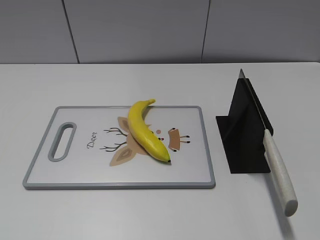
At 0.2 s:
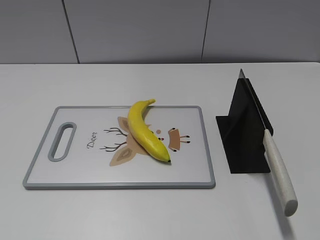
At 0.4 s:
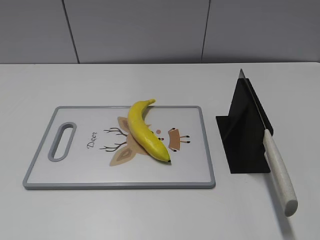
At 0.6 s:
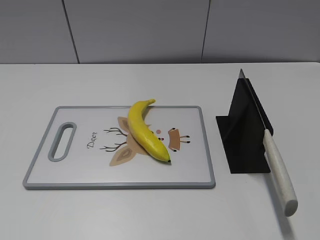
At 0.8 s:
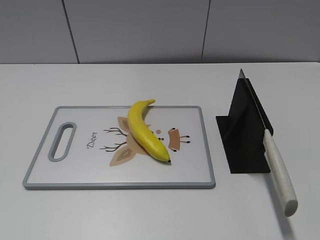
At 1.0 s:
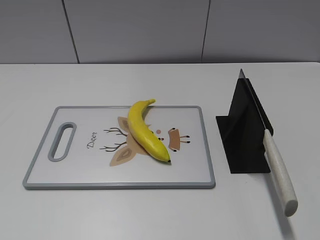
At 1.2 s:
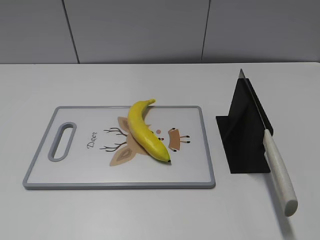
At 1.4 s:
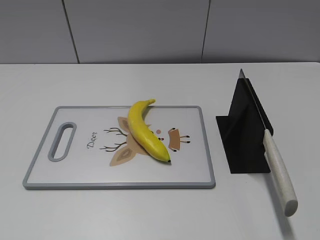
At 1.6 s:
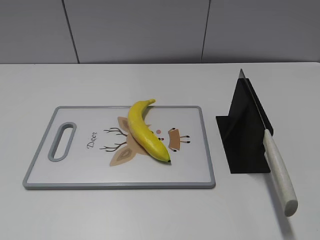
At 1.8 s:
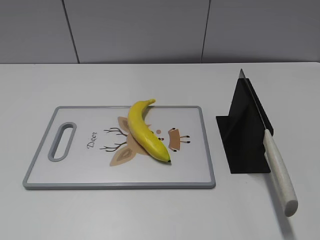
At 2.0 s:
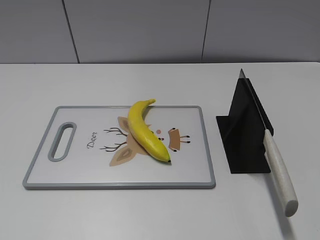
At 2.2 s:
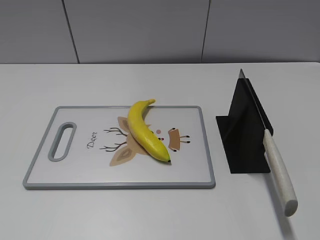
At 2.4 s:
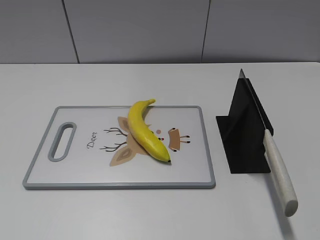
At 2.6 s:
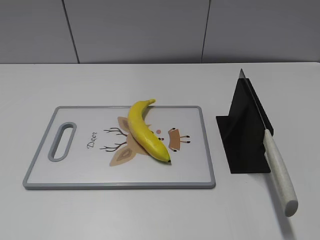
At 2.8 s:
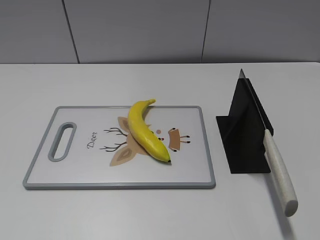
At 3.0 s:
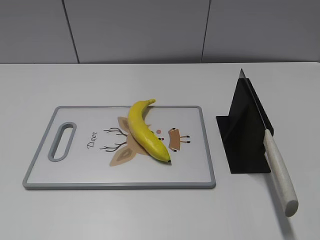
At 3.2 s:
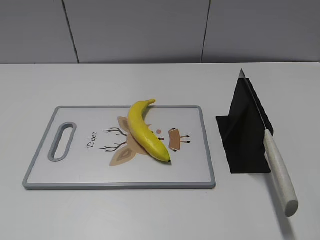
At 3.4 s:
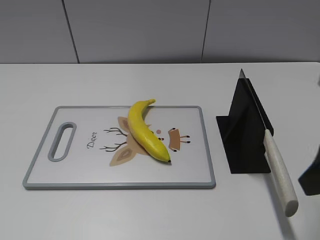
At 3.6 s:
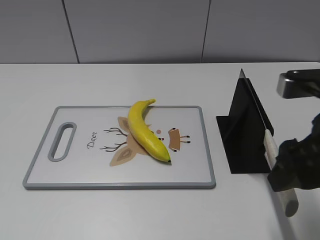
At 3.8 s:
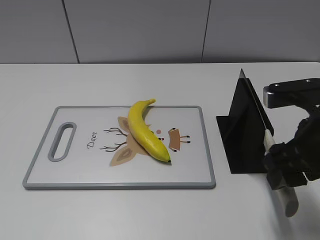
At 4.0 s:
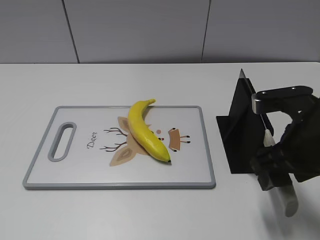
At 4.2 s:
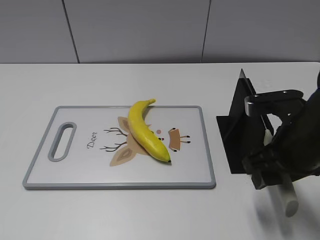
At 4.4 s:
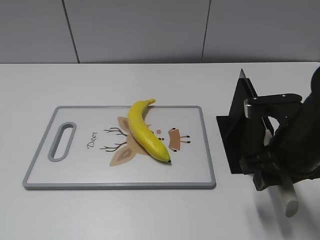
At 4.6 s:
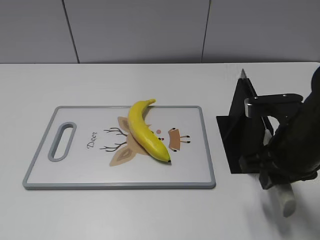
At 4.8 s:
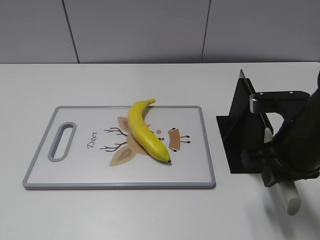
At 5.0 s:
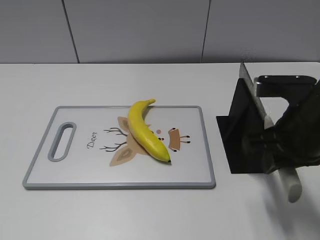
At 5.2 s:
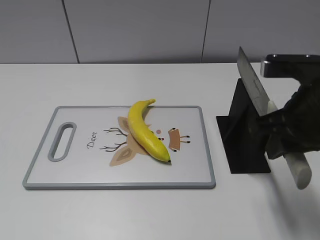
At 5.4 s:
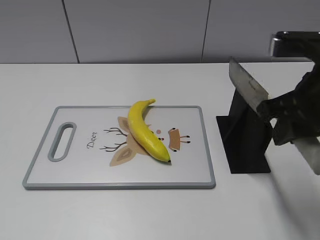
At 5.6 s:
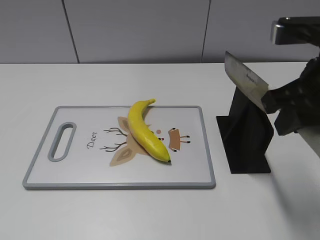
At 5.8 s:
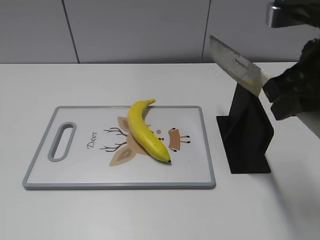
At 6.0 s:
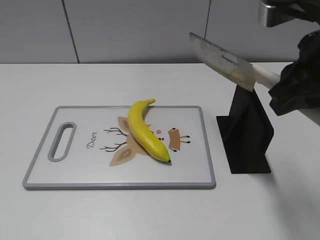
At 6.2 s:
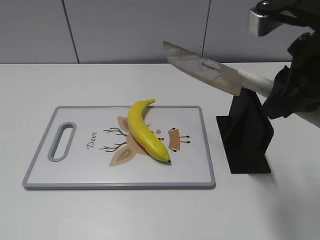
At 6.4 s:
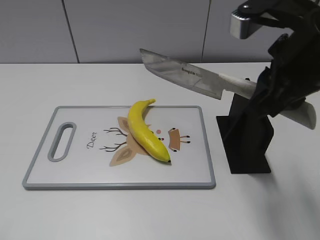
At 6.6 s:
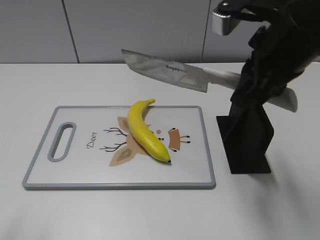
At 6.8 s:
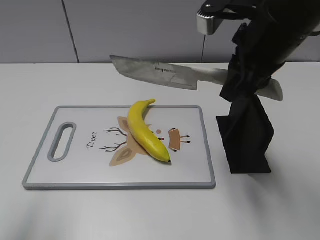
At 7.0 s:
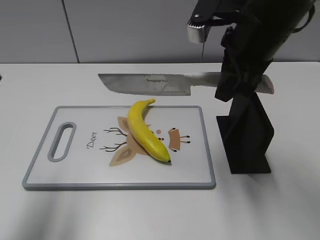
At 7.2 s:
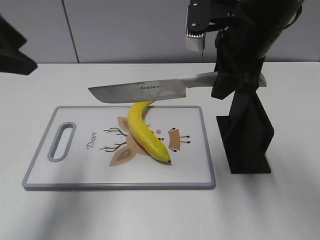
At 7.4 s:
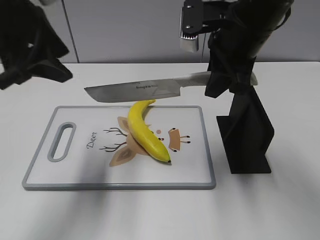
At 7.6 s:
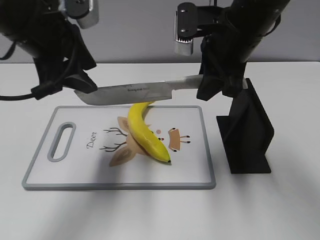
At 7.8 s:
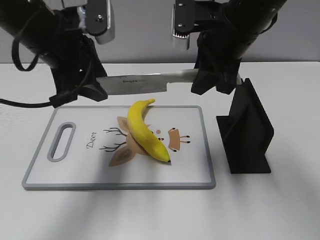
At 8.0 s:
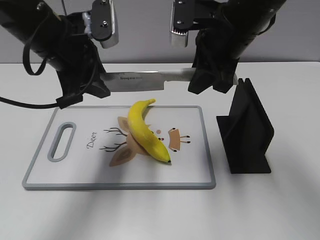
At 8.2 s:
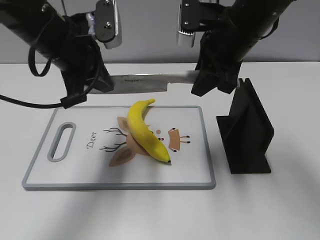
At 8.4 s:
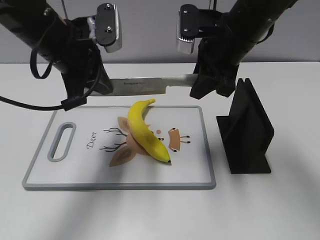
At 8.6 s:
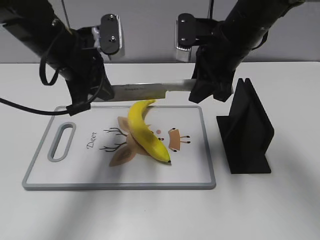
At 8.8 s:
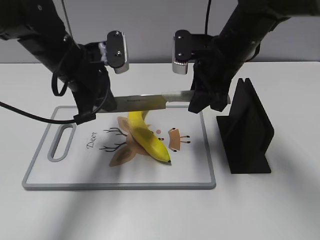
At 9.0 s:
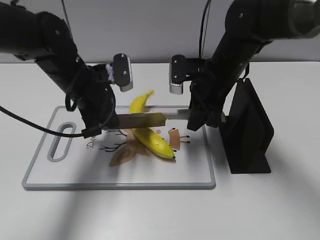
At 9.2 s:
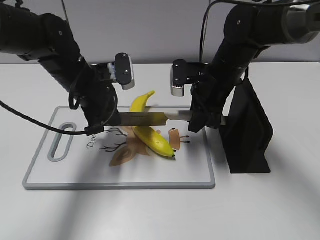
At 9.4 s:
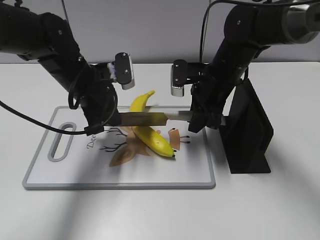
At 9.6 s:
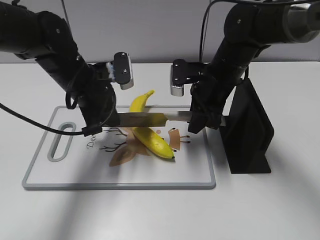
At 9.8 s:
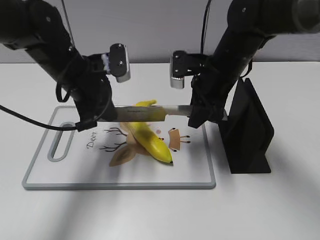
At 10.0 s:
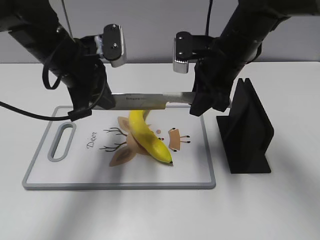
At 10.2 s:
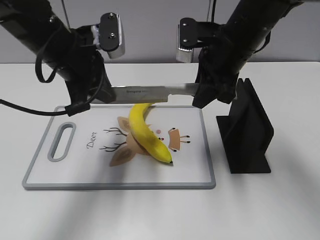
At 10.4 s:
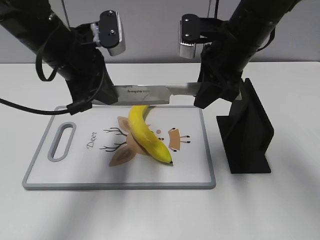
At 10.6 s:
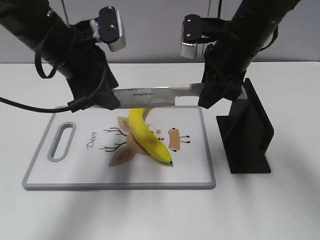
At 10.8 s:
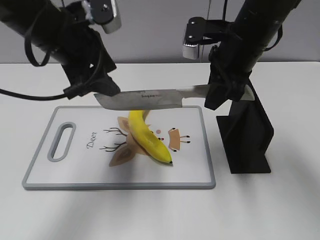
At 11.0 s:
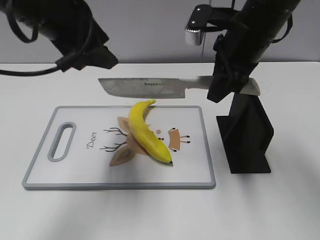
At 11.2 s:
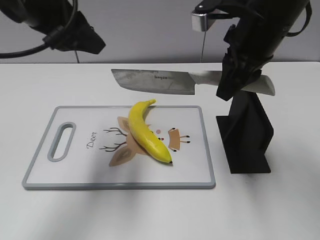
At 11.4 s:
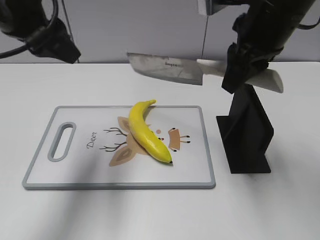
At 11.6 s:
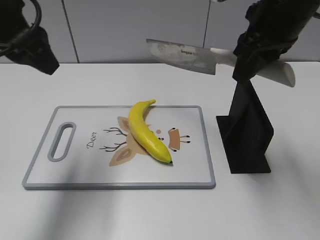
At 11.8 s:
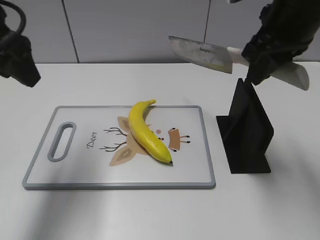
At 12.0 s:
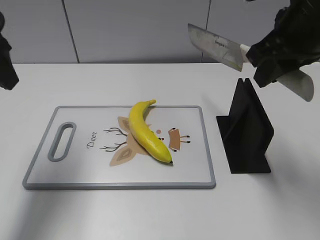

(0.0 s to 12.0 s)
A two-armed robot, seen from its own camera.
Task of the whole recording: cut plastic banana.
Step, 0.0 s - 5.6 s: Grab the knife handle with your right hand.
Step, 6.0 s - 10.4 s: Lift the knife with your right hand.
Step, 10.6 s - 11.8 s: Cut the banana with your right hand.
3.0 s - 4.4 s: The right gripper heads downward, forward and to the left, covering some 20 cm.
4.4 s - 6.0 s: The right gripper goes approximately 15 cm upward, and closes up.
6.0 s - 7.6 s: The left gripper travels forward and to the right by about 35 cm; the right gripper is displaced forward and to the left by about 15 cm.
7.6 s - 9.0 s: The two grippers go roughly 10 cm downward. The left gripper closes.
9.0 s - 10.4 s: Both grippers travel together upward, some 10 cm.
10.4 s - 12.0 s: The right gripper heads upward, backward and to the right, covering roughly 10 cm, while the left gripper travels to the left and upward by approximately 15 cm, and opens up.

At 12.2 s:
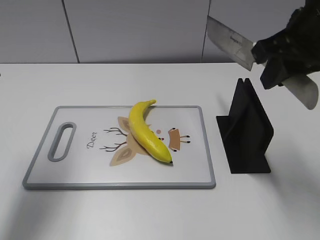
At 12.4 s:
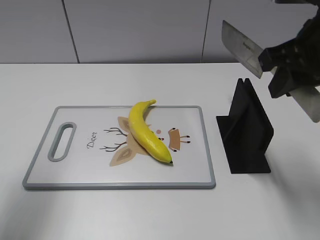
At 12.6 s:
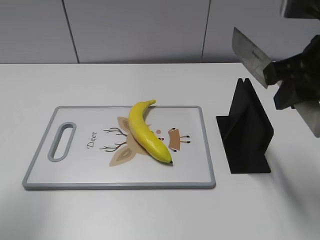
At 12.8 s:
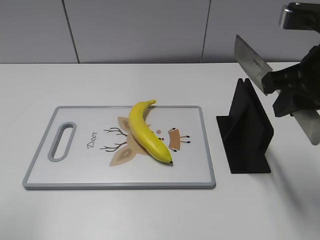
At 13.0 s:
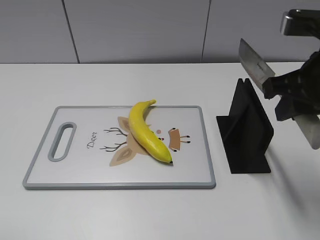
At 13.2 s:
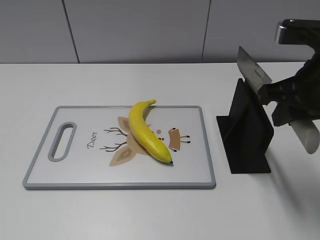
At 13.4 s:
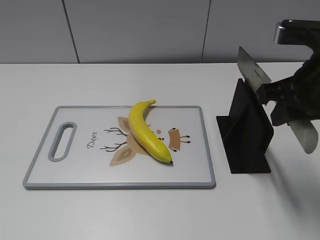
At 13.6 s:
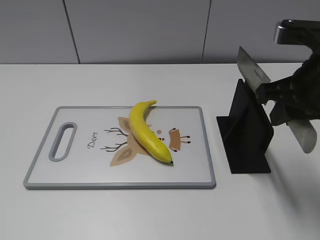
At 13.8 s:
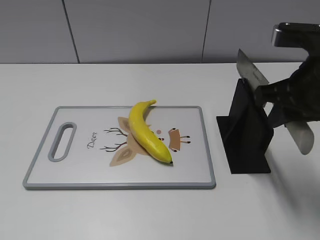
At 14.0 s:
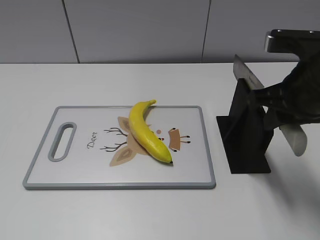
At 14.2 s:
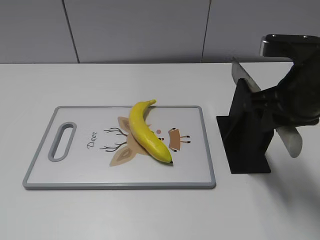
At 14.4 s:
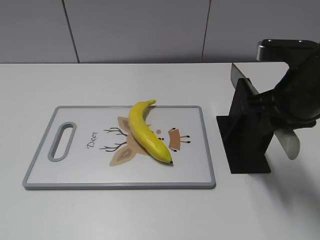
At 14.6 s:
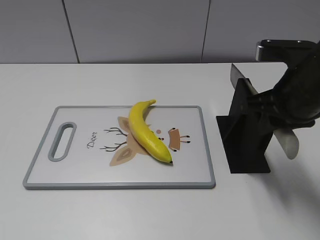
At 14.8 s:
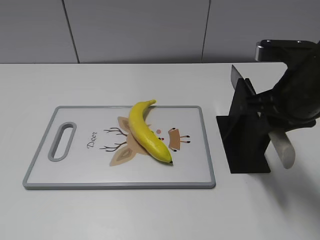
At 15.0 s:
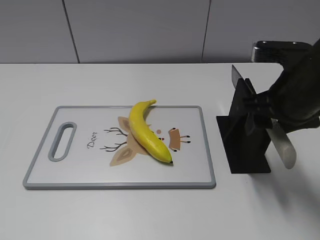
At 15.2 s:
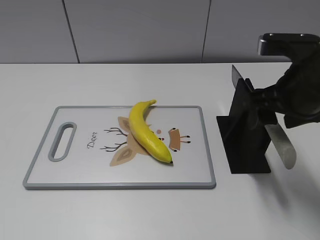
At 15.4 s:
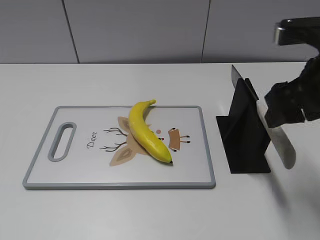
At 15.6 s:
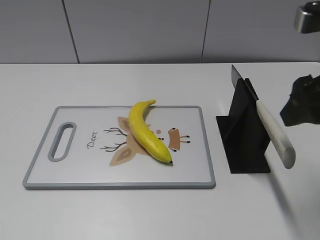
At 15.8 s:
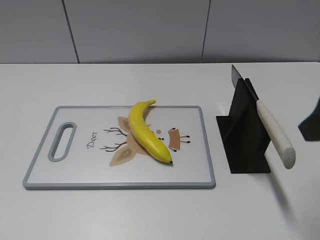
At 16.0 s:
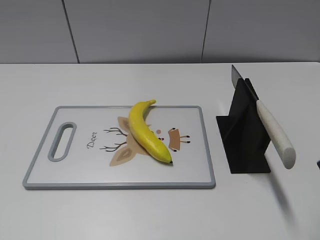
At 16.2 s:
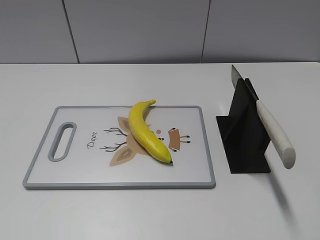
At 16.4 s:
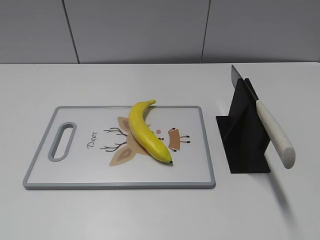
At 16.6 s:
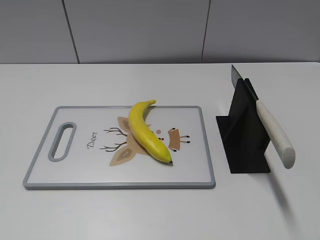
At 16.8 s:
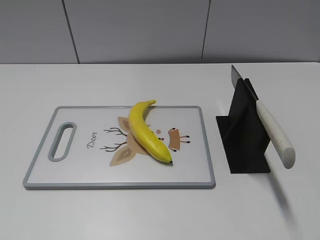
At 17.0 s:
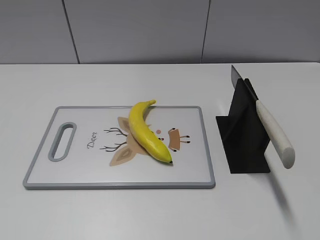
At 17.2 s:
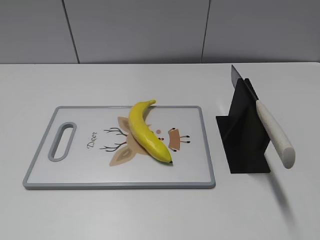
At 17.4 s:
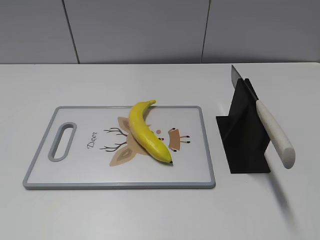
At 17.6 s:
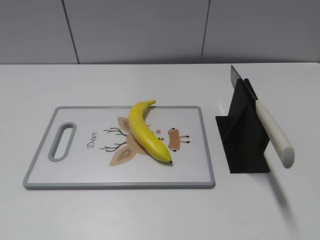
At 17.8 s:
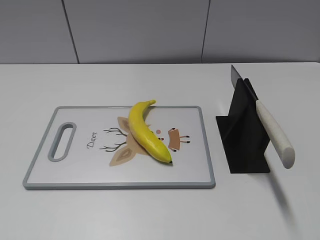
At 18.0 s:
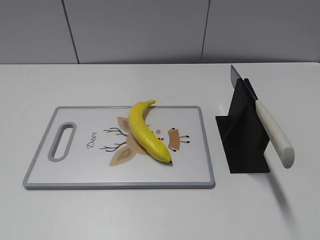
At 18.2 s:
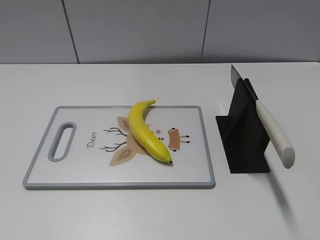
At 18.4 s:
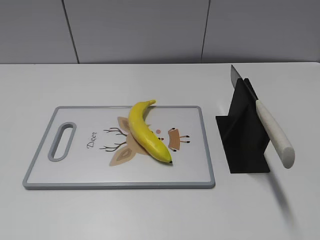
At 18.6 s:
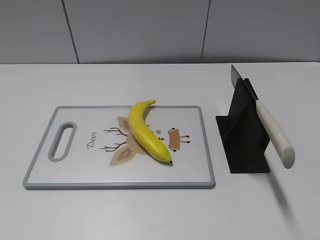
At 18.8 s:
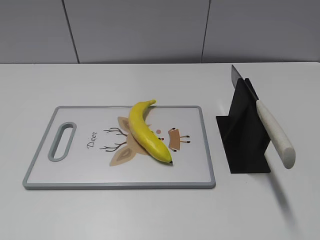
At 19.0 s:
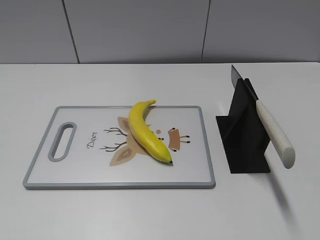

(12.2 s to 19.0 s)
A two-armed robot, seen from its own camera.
Task of the whole recording: cut plastic banana.
Step, 12.2 s - 13.2 s: Lift the knife with your right hand.
Step, 13.4 s - 18.4 s: Place the knife on the storage rack with your right hand.
12.2 s - 13.6 s: The left gripper heads backward, covering roughly 30 cm. Meanwhile the right gripper shifts approximately 5 cm downward.
13.6 s - 15.0 s: The right gripper opens.
15.0 s - 16.2 s: The right gripper shifts about 15 cm backward.
16.2 s - 17.6 s: The right gripper travels backward by some 10 cm.
